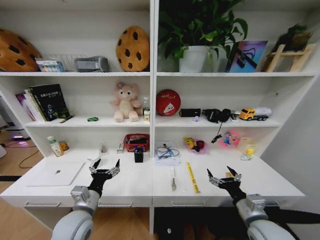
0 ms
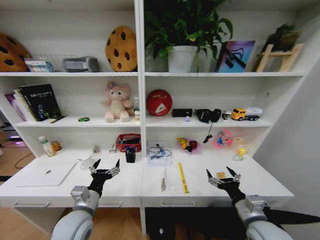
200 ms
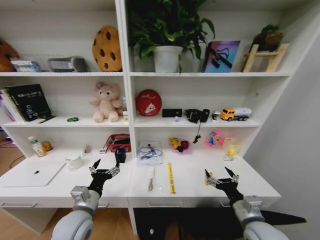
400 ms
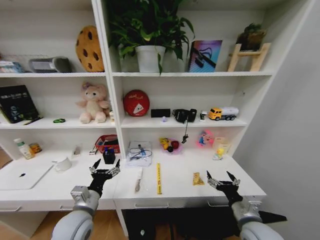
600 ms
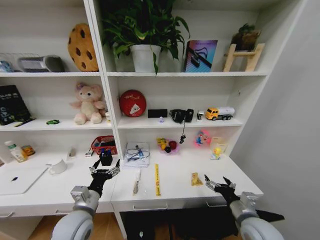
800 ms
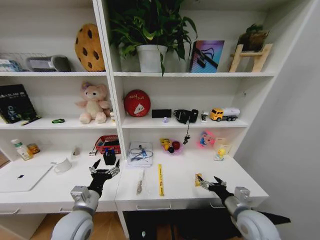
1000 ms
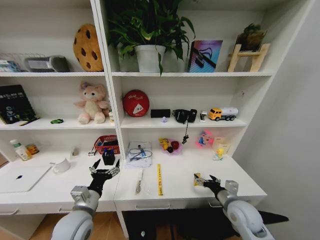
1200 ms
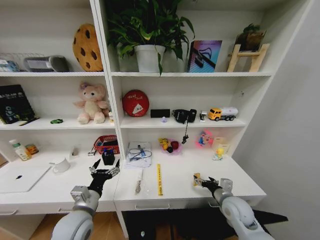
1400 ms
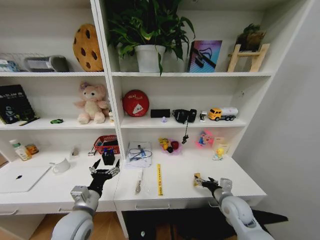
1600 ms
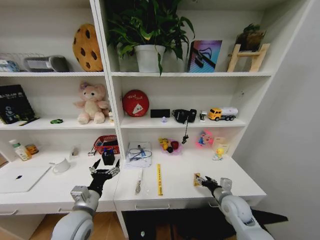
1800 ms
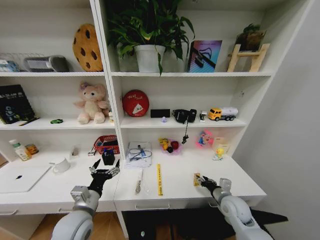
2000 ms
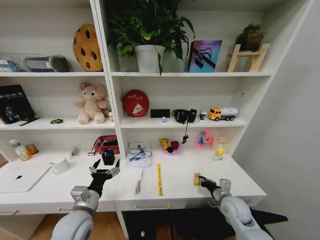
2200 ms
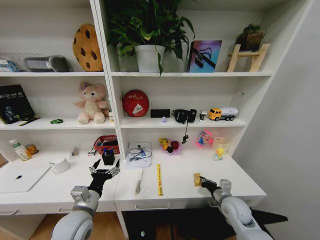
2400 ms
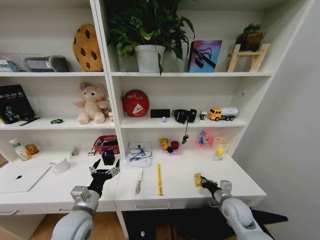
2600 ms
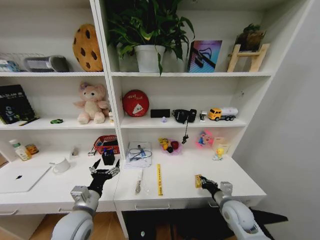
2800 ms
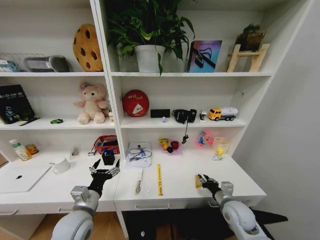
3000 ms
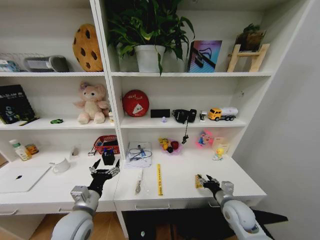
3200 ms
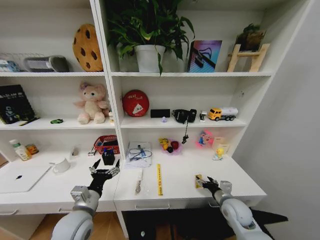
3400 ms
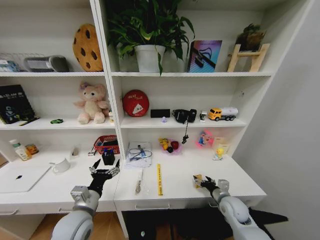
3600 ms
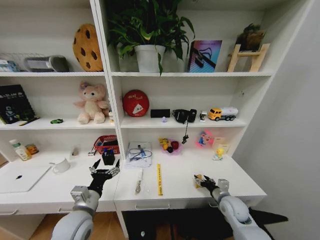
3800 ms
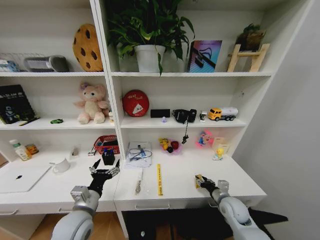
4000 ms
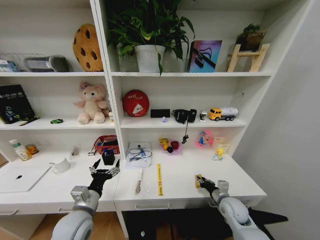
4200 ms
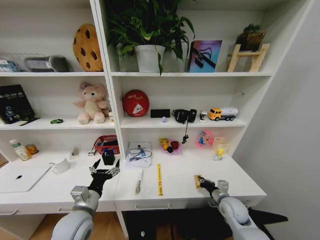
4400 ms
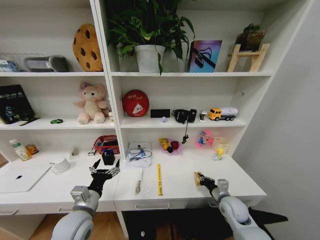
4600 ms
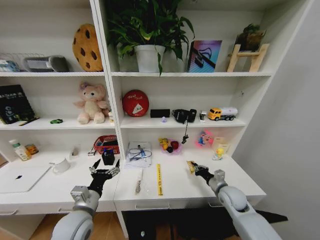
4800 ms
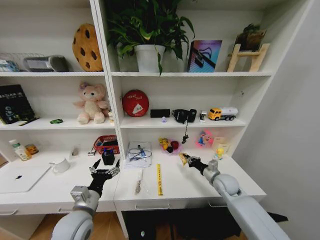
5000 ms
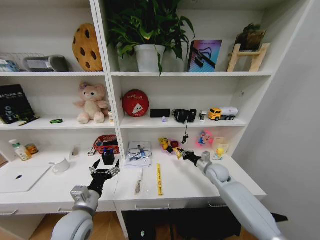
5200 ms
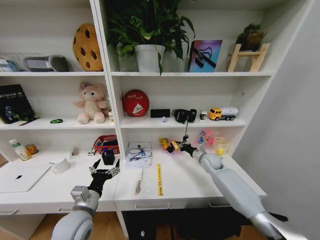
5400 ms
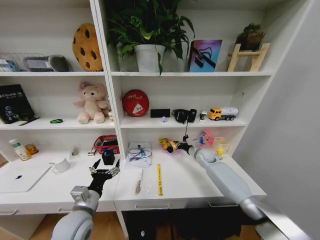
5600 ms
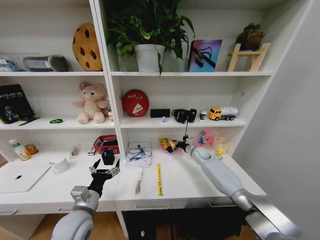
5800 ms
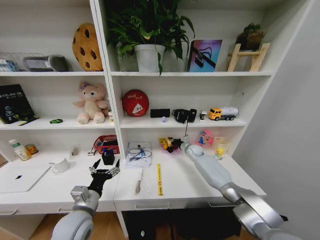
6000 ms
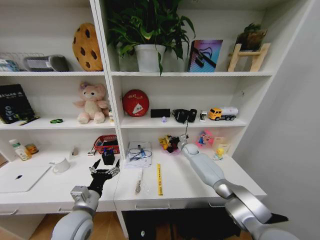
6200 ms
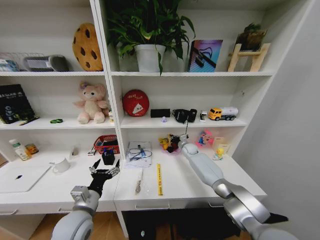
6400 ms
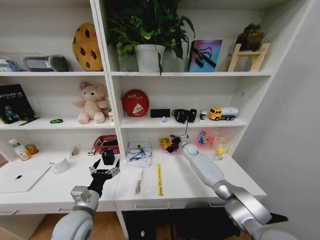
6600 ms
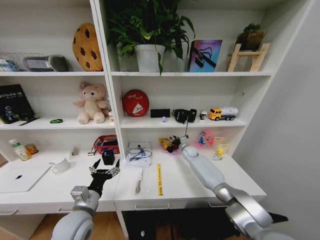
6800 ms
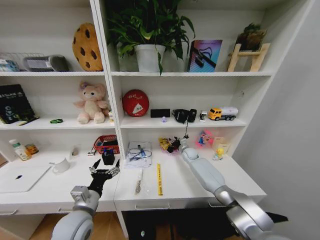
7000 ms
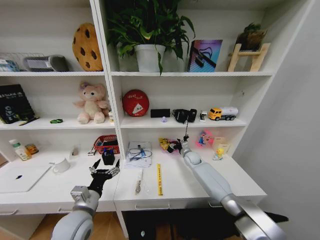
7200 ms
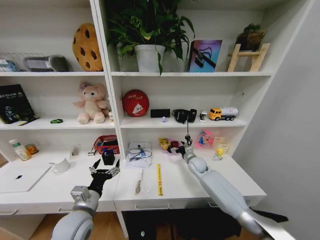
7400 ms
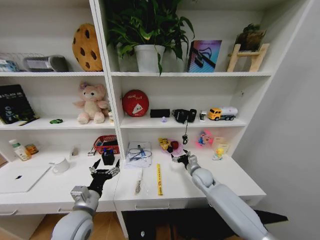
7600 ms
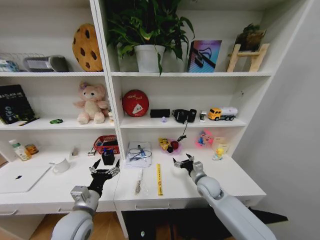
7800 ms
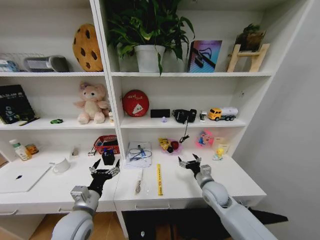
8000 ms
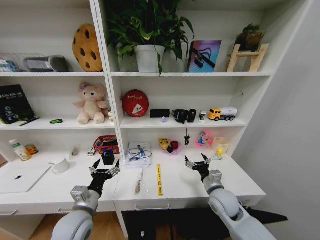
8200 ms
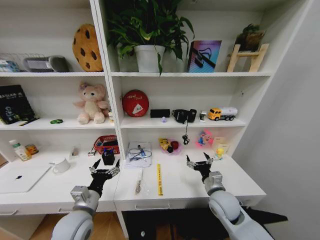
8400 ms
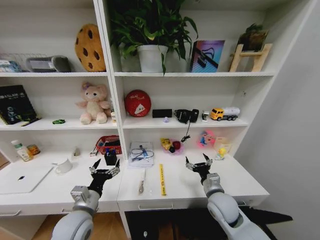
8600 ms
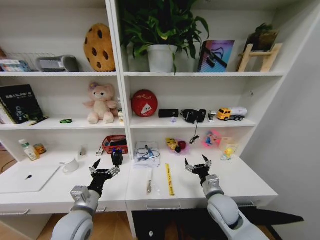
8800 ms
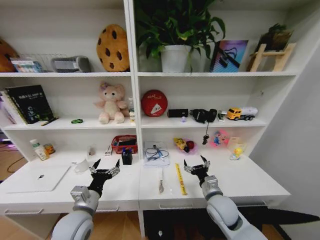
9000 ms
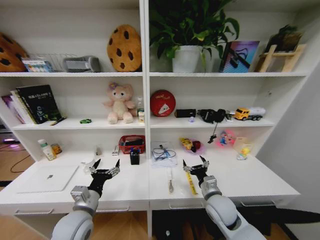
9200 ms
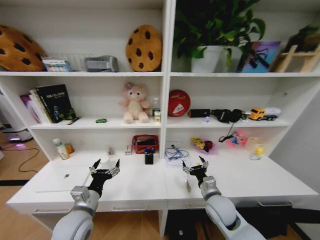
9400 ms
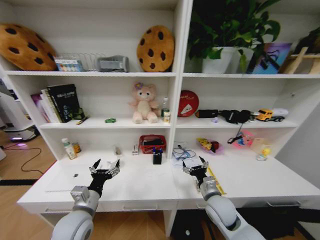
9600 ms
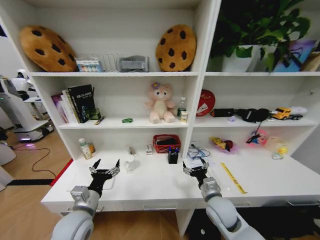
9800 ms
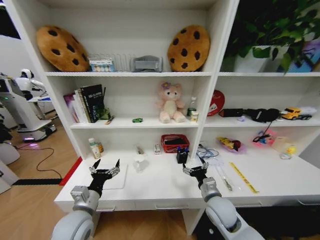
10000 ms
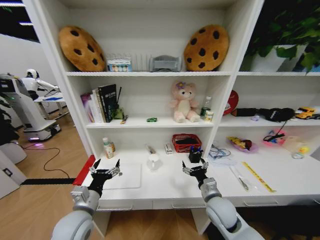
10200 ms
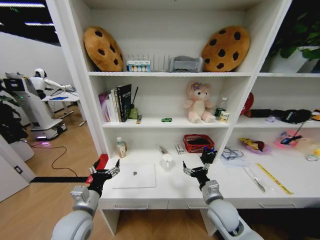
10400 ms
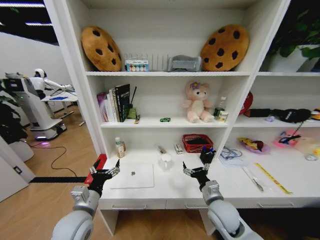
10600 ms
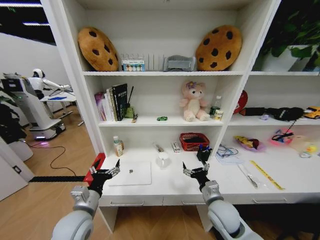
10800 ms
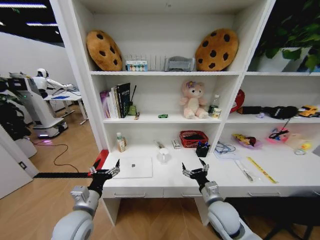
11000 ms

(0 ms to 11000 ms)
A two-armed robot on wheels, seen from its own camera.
Task of the whole recording: Organize the objects on the table.
0 ms - 1600 ms: The right gripper heads forward and downward, covering some 10 cm.
1600 ms - 3200 ms: The right gripper closes.
3200 ms - 4800 ms: The right gripper travels forward by some 5 cm, and closes its fingers.
4800 ms - 6200 ms: The right gripper travels forward by approximately 30 cm.
6200 ms - 7800 ms: The right gripper moves backward, some 25 cm, and opens its fingers.
7800 ms - 9400 ms: The right gripper is displaced backward by about 10 cm.

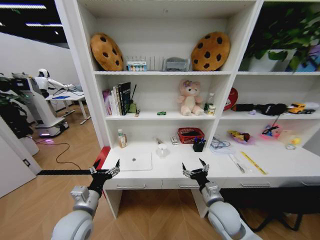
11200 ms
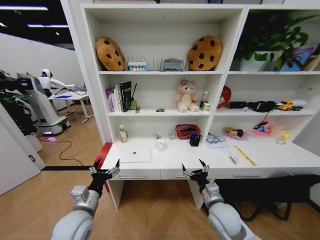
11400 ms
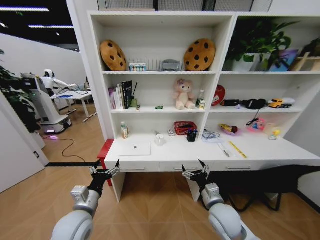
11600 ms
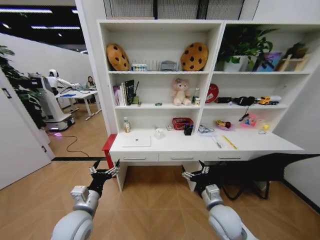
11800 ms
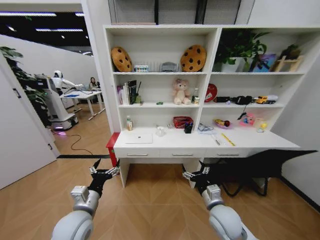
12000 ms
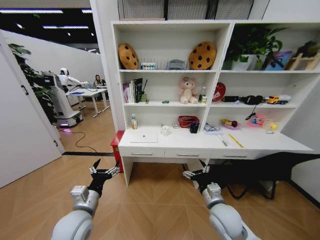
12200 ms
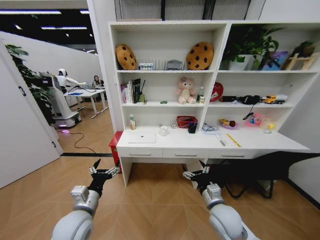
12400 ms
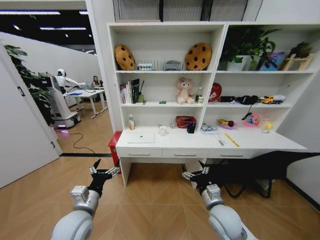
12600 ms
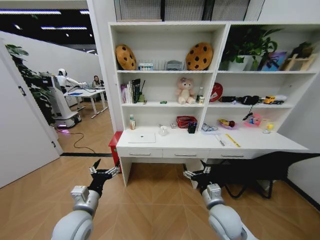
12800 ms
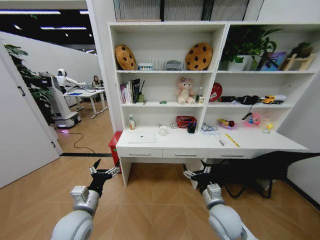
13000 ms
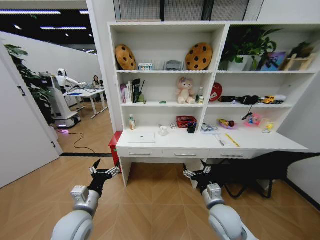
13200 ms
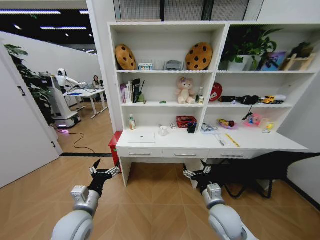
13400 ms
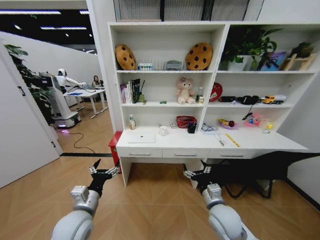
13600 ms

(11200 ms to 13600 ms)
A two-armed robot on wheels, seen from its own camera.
Task of the whole recording: Organize the objects on the table.
12400 ms - 13600 ms: Both grippers stay about where they are.

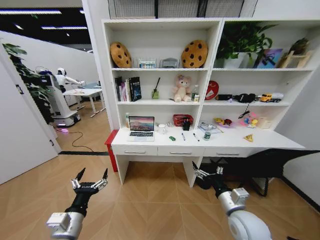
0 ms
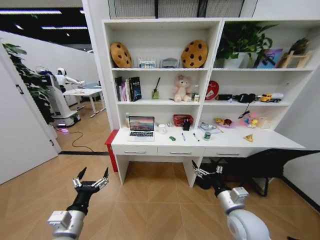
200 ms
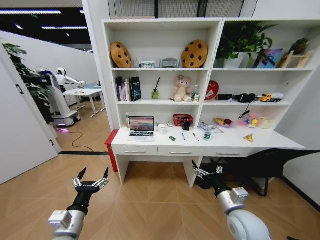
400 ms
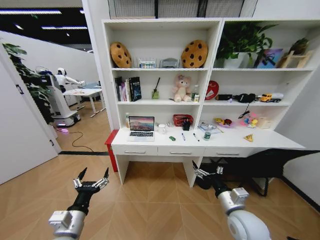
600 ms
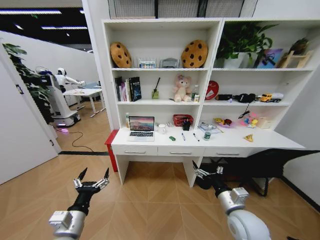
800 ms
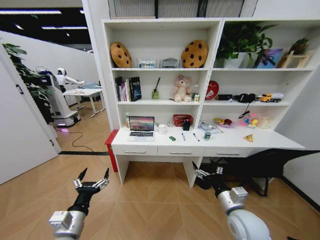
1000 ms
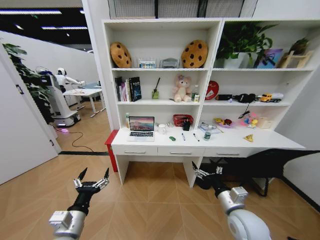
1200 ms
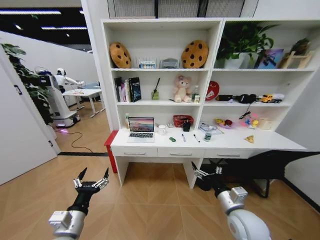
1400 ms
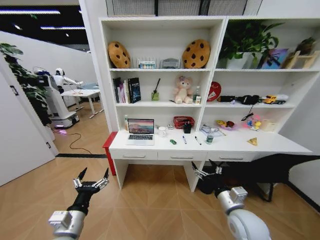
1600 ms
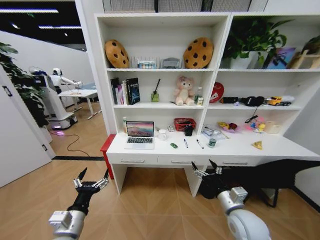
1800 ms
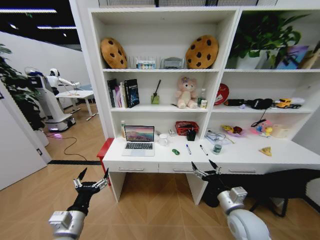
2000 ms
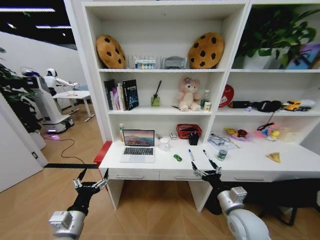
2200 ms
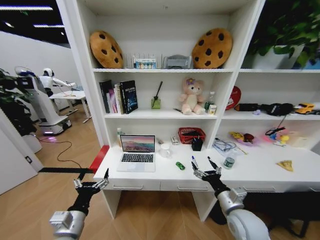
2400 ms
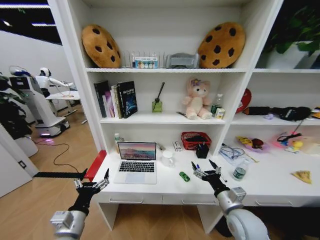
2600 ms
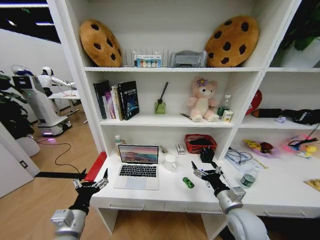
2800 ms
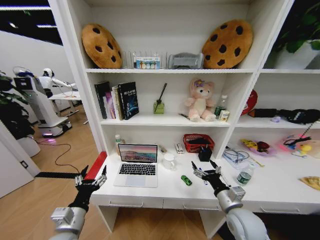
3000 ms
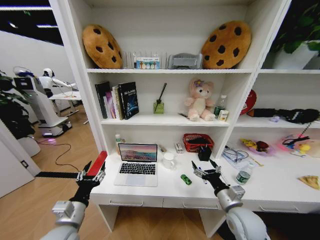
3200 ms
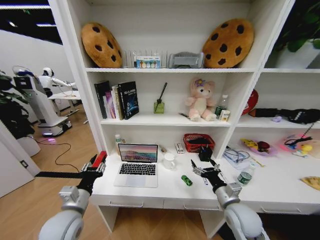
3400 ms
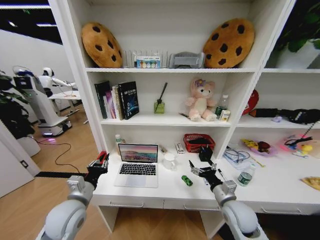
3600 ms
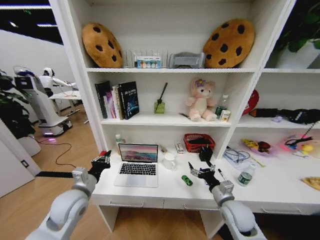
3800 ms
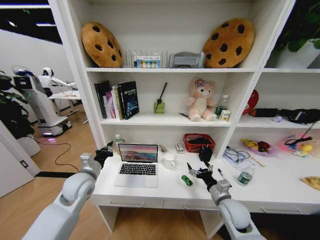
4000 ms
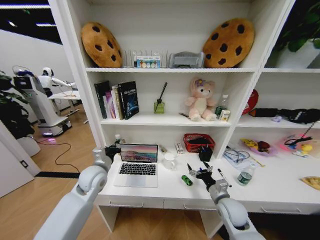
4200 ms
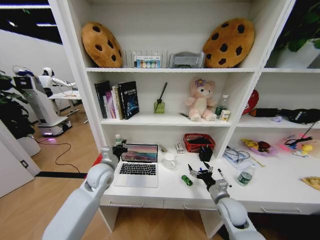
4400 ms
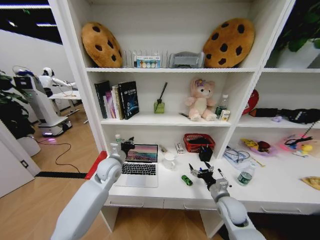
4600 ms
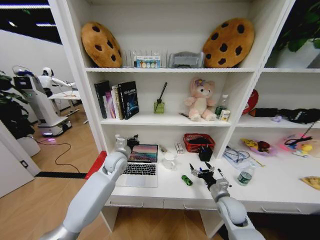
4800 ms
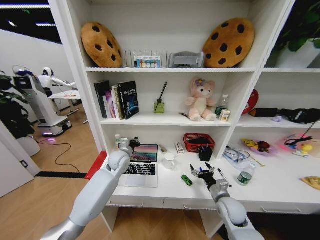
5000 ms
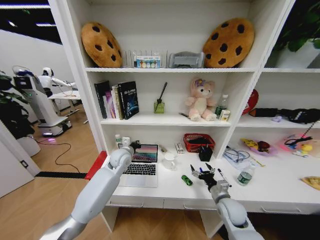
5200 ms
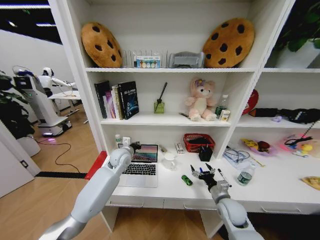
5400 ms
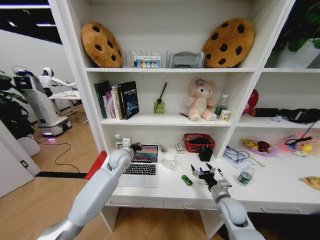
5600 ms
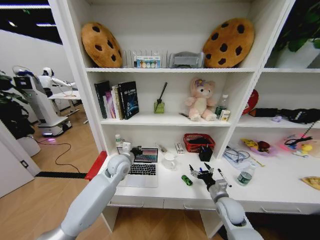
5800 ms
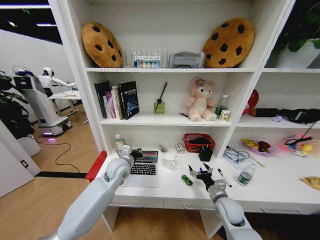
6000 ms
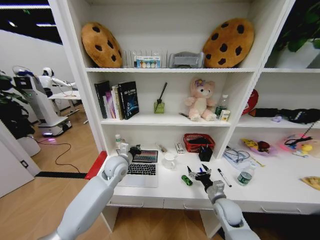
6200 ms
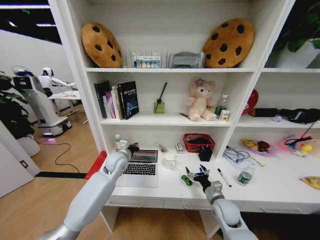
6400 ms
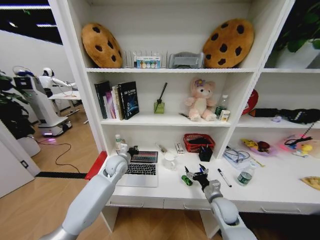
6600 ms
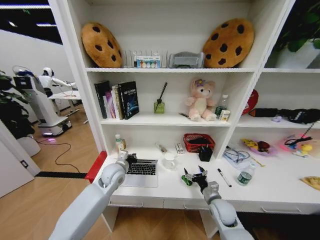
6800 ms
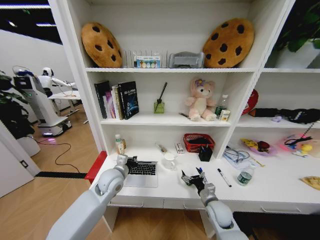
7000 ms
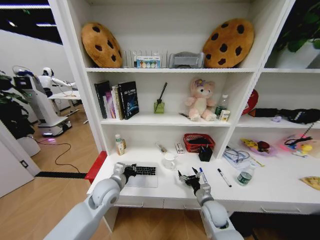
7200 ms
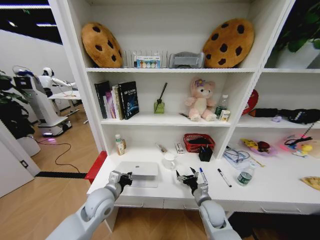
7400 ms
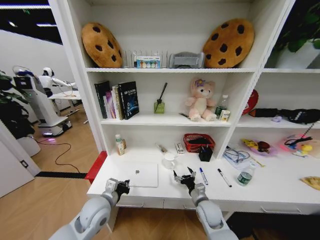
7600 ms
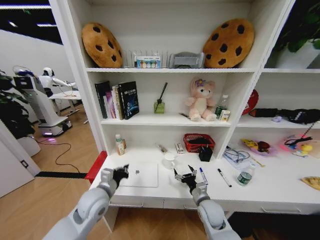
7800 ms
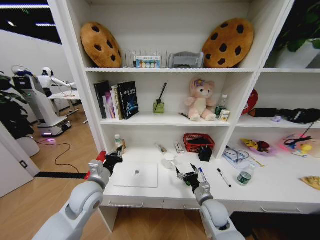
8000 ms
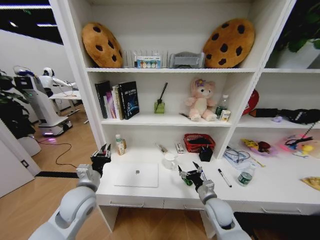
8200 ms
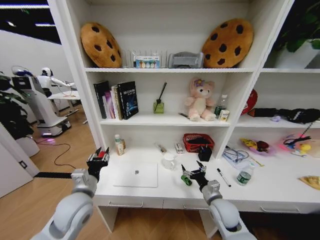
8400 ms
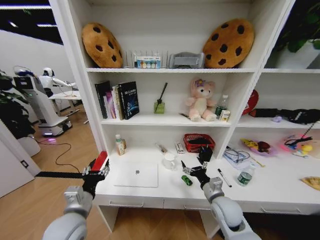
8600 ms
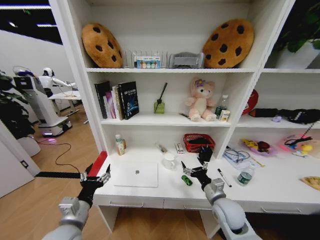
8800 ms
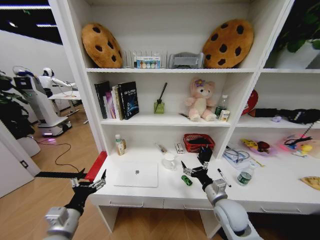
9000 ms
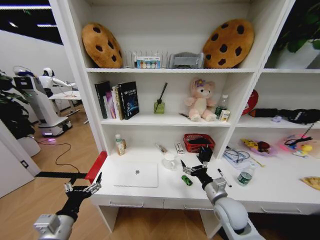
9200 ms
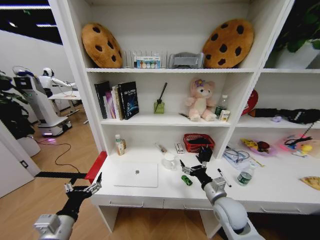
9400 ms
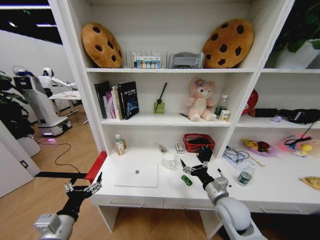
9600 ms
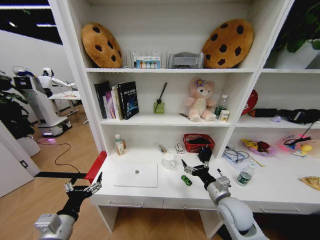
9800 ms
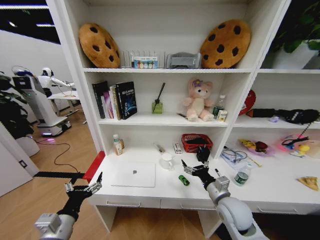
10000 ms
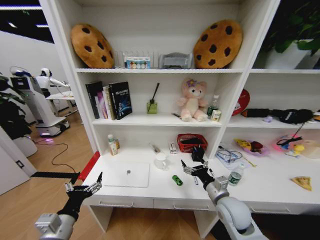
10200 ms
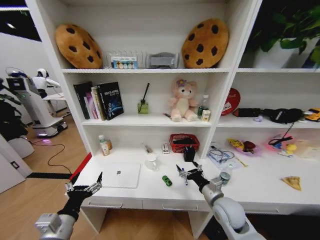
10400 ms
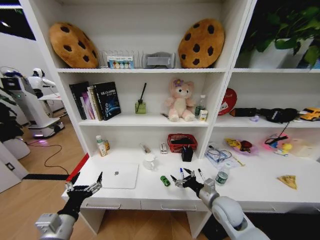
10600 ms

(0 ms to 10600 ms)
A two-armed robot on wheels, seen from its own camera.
Task of the whole recording: Organize the objects on the table.
3000 ms - 4600 ms: The right gripper shifts some 10 cm forward and downward, while the left gripper is displaced forward by approximately 20 cm, and closes up.
4600 ms - 6000 ms: The left gripper is displaced to the right by roughly 5 cm, and travels forward and back again, some 10 cm each way.
6000 ms - 7600 ms: The left gripper is displaced backward, downward and to the left by roughly 15 cm; the right gripper is displaced to the left by about 10 cm.
7600 ms - 9000 ms: The right gripper heads upward, covering approximately 10 cm; the left gripper travels backward and to the left by some 15 cm, and opens its fingers.
